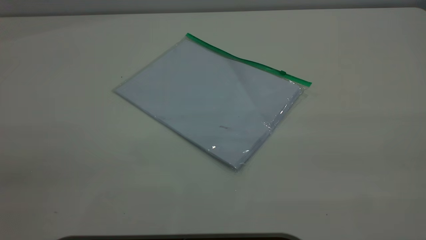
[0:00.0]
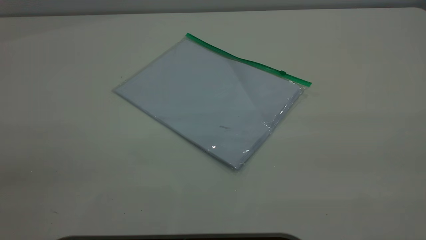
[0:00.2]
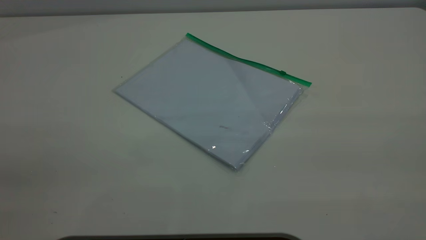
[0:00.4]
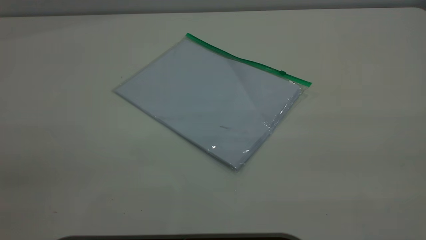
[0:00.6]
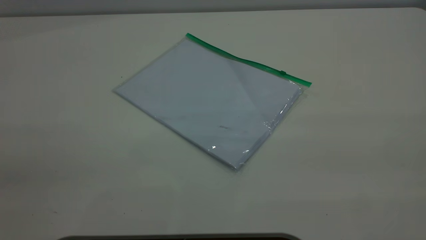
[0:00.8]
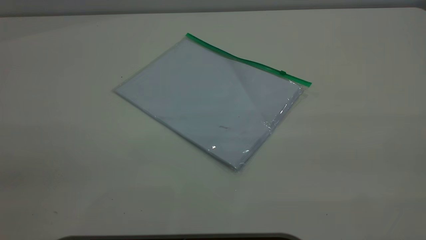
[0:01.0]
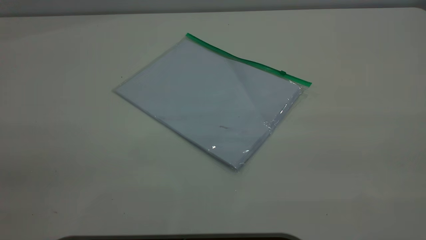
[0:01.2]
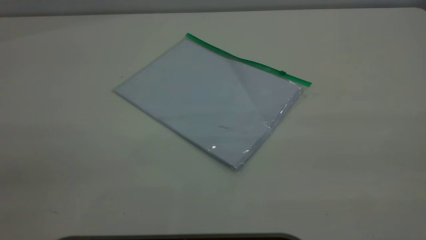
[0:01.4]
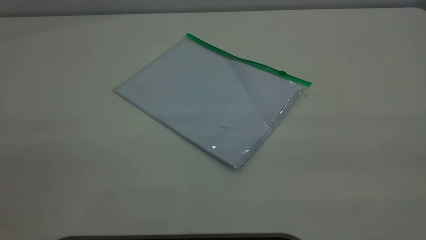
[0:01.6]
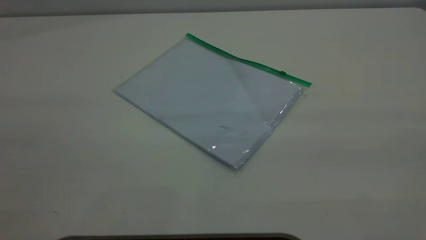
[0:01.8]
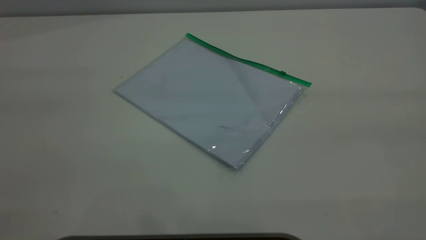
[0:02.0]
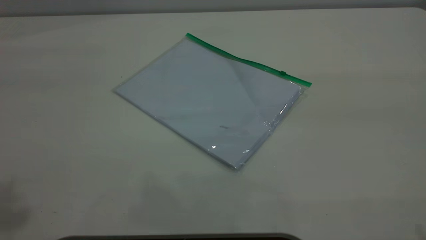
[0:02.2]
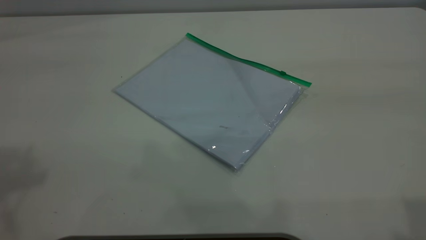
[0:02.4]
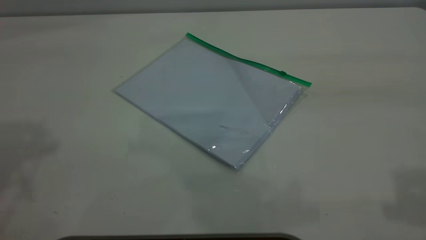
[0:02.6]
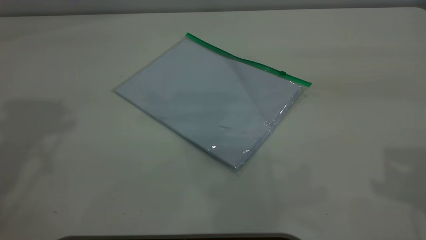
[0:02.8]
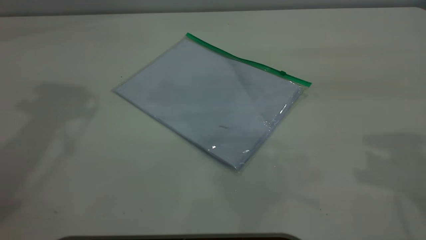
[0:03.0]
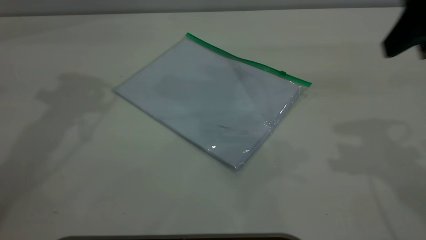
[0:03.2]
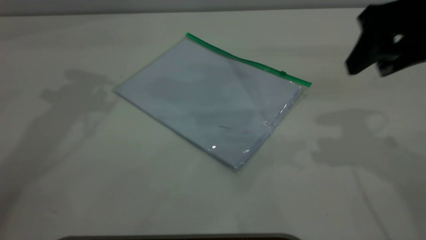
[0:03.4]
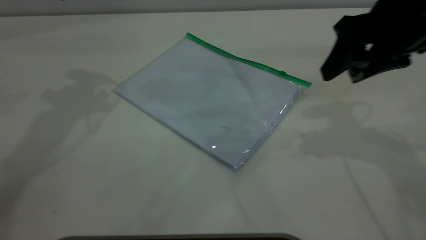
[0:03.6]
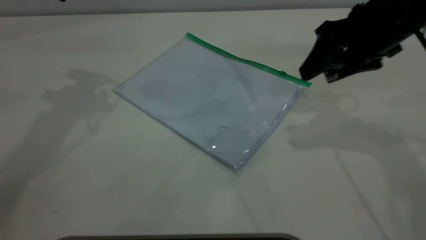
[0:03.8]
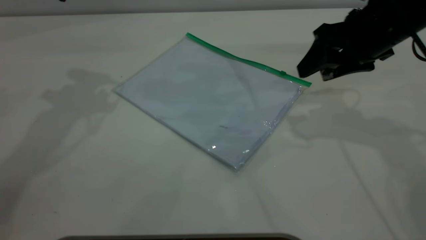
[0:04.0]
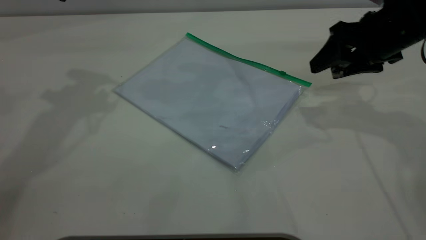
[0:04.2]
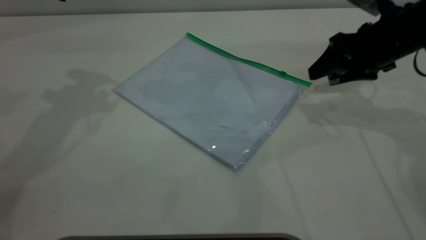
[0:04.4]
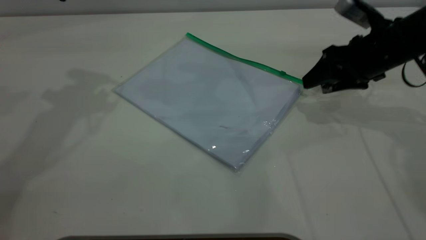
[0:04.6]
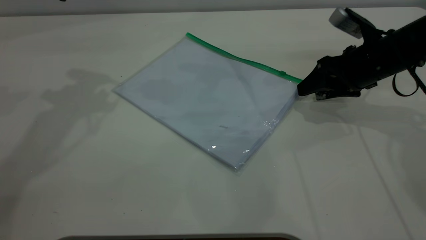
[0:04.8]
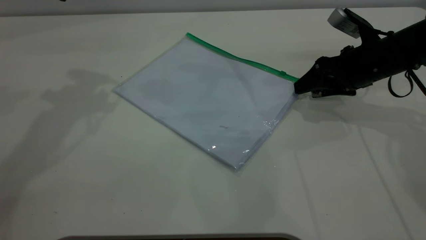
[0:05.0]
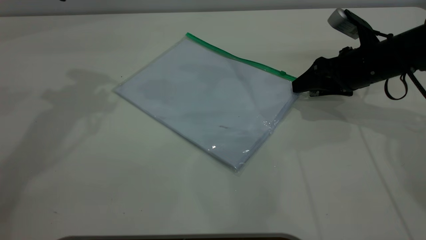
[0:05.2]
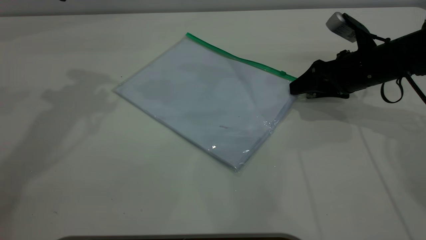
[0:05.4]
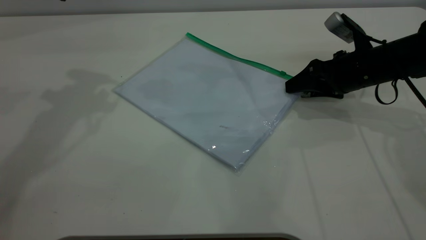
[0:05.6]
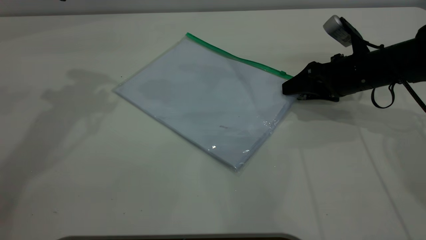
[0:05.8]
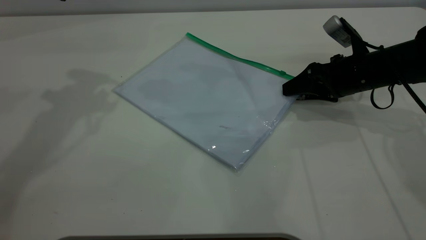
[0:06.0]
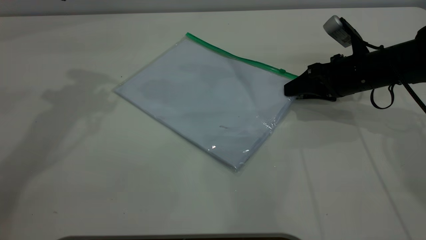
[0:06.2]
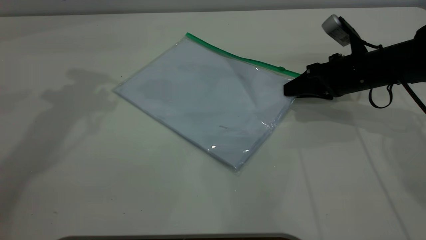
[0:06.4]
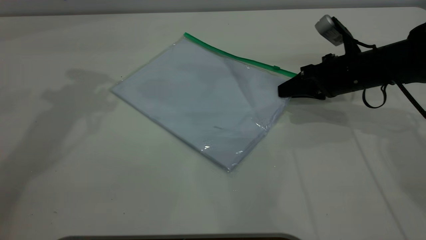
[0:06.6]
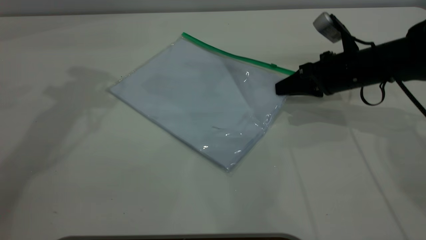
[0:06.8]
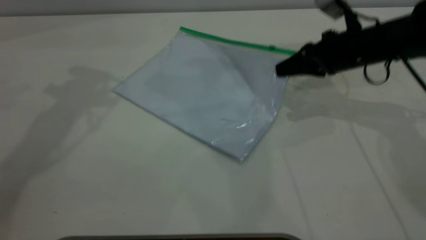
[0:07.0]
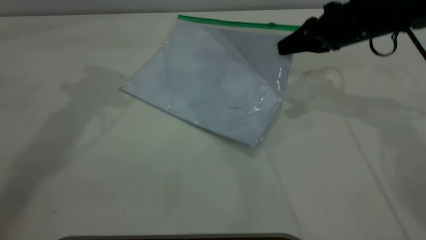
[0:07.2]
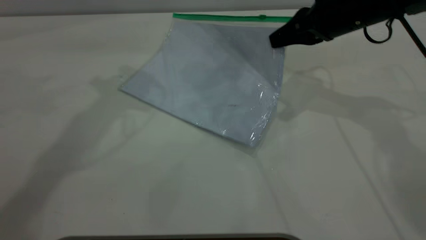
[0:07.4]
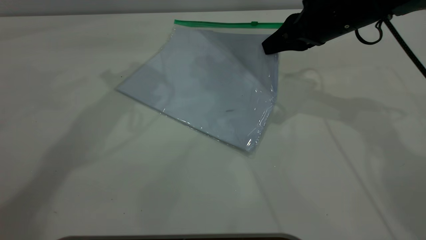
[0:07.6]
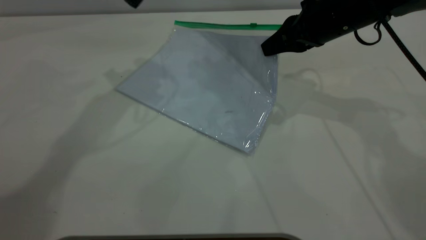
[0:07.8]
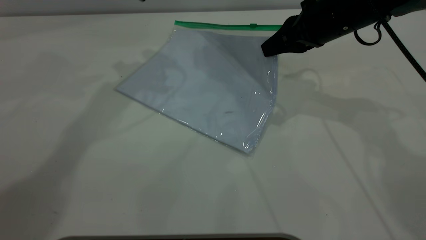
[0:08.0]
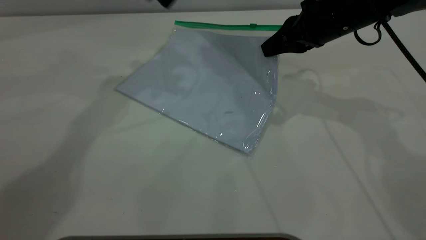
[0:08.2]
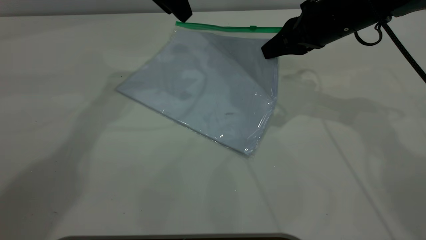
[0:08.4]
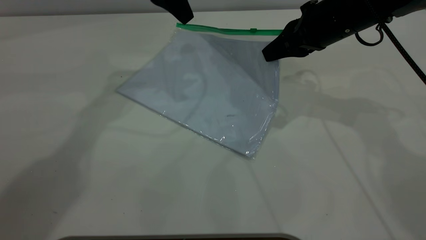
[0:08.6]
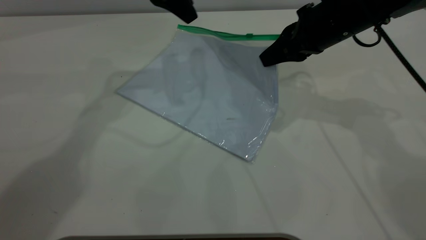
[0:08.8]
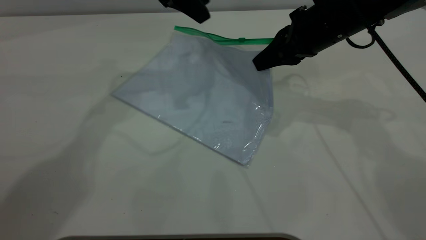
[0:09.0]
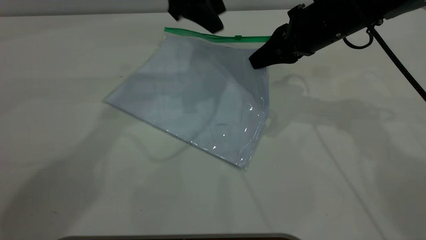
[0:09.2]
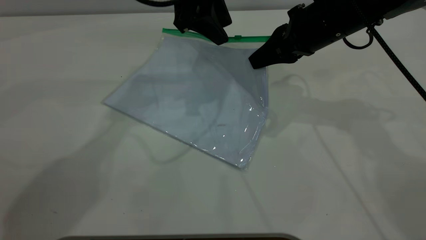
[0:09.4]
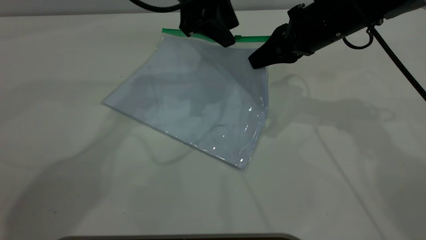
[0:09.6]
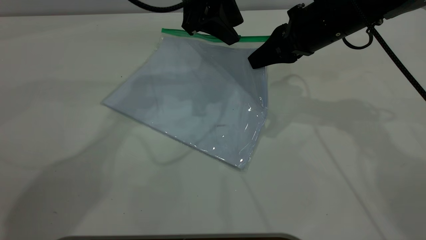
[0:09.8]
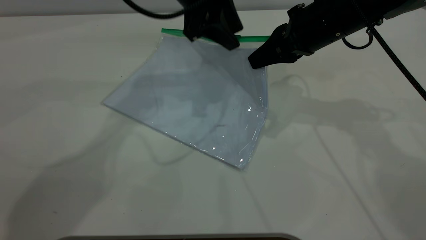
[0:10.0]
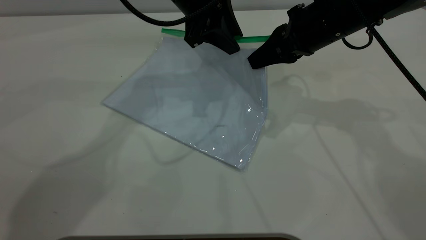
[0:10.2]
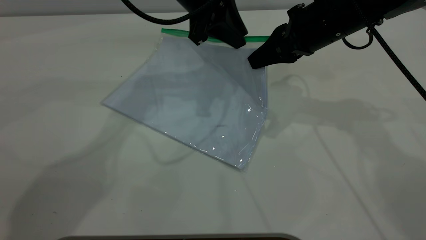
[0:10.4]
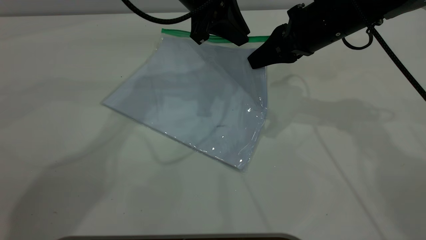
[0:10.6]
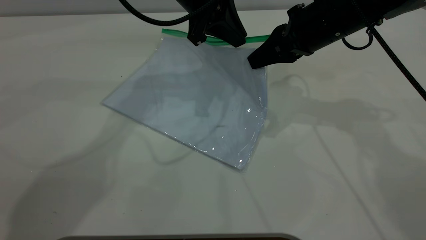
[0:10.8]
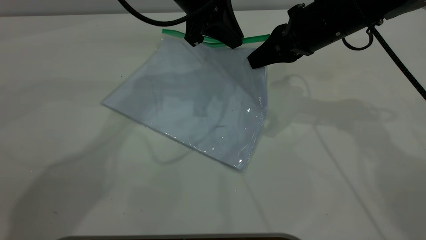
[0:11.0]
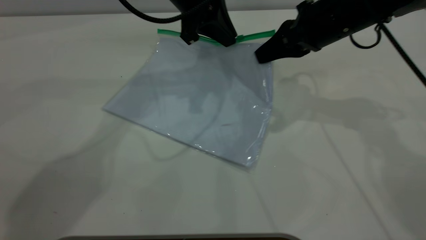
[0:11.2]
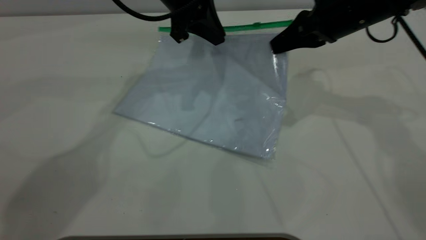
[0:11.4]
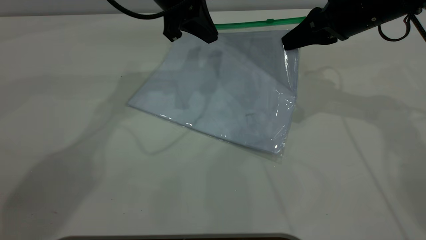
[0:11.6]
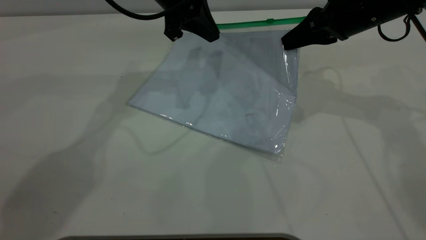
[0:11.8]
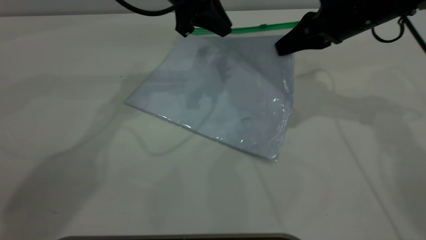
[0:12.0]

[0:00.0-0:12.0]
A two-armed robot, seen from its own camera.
Step, 0:00.0 to 0:07.6: Pick up the transparent plastic bag with the right gripper.
0:03.0 to 0:04.4: The right gripper shifts some 20 cm downward and forward.
0:04.4 to 0:06.0: The right gripper travels downward by some 10 cm.
0:06.0 to 0:07.6: The left gripper heads to the right, covering approximately 10 cm. The right gripper heads upward and to the left, covering roughly 10 cm, and closes.
0:07.6 to 0:09.0: The left gripper heads to the right, covering approximately 10 cm.
0:09.0 to 0:10.4: The left gripper shifts by roughly 5 cm, and closes its fingers.
0:10.4 to 0:12.0: The grippers stay close to where they were, moving slightly.

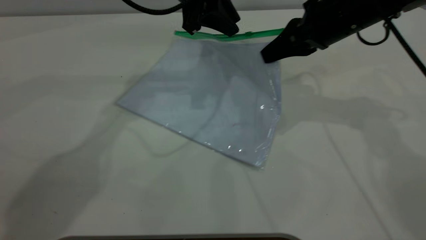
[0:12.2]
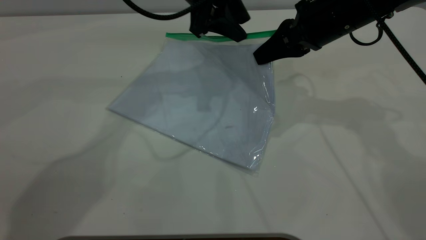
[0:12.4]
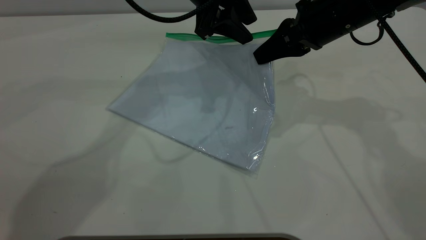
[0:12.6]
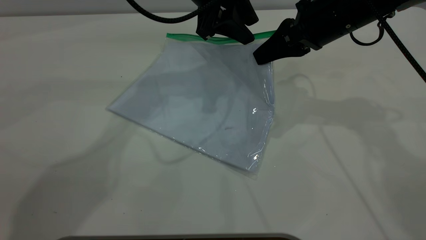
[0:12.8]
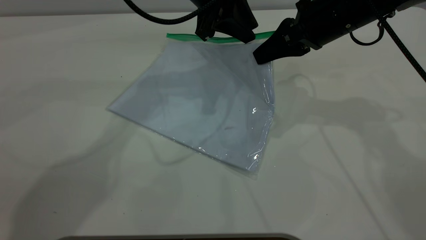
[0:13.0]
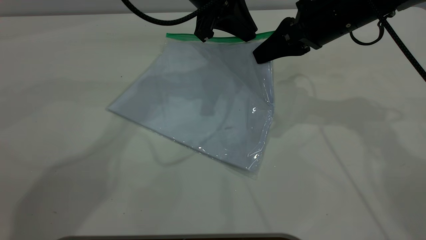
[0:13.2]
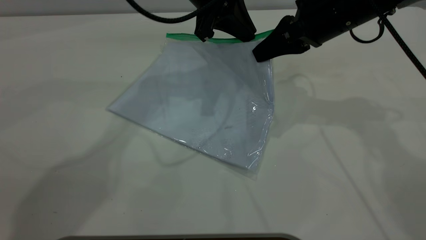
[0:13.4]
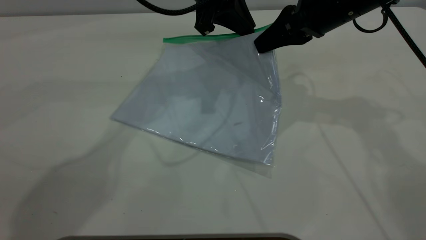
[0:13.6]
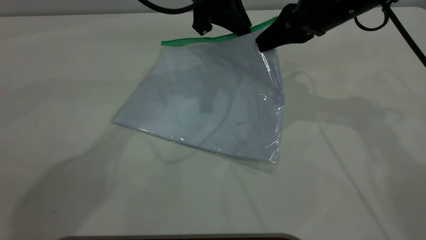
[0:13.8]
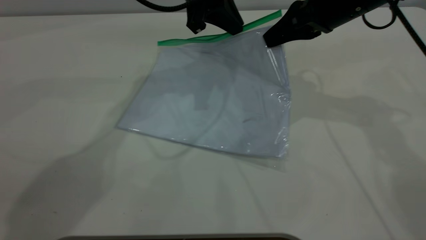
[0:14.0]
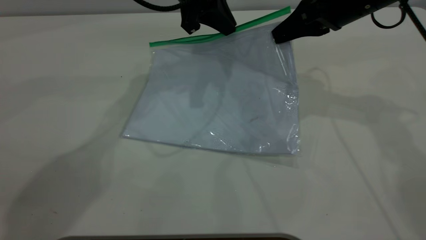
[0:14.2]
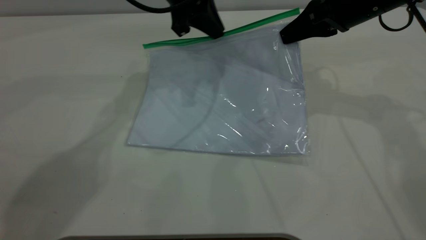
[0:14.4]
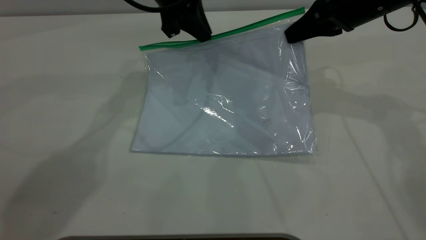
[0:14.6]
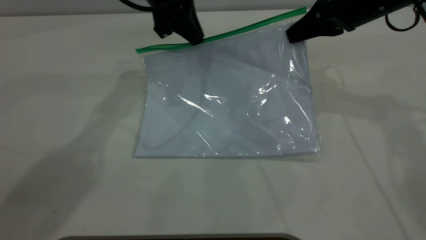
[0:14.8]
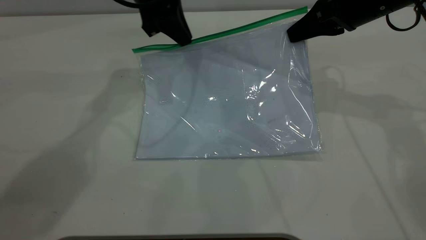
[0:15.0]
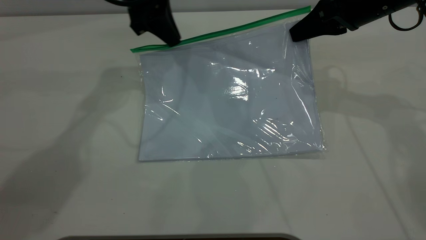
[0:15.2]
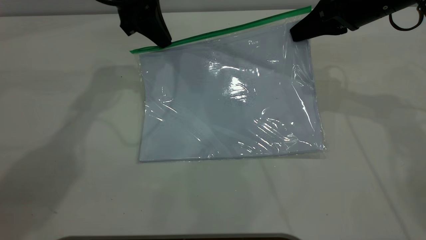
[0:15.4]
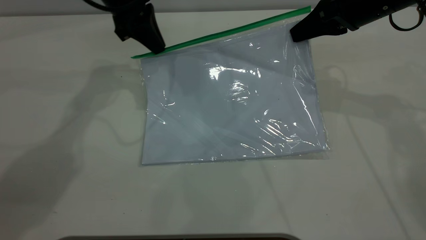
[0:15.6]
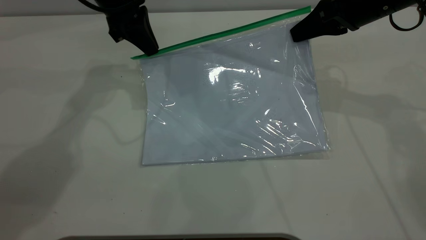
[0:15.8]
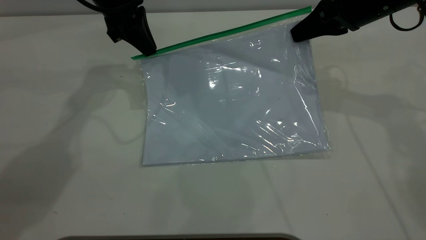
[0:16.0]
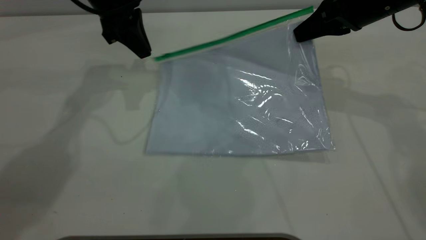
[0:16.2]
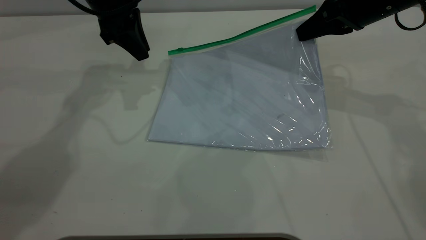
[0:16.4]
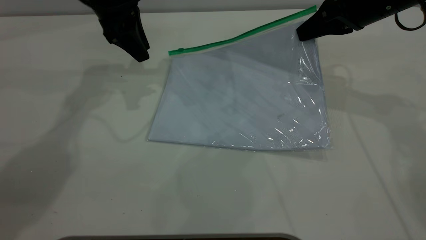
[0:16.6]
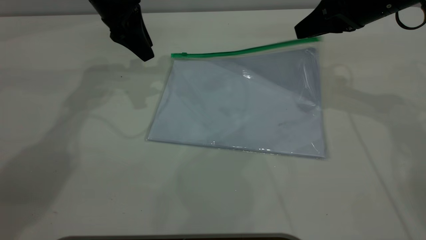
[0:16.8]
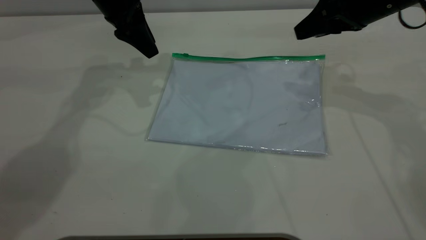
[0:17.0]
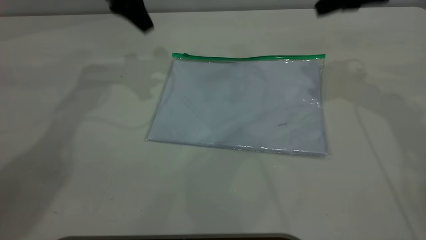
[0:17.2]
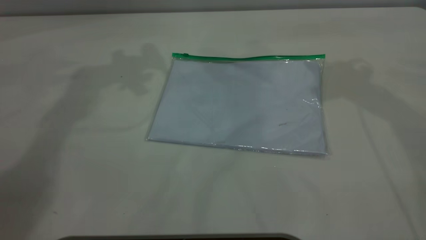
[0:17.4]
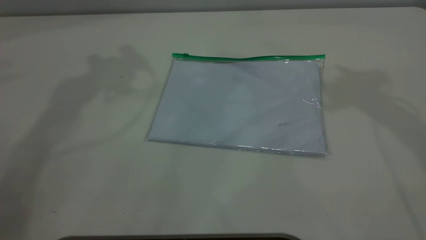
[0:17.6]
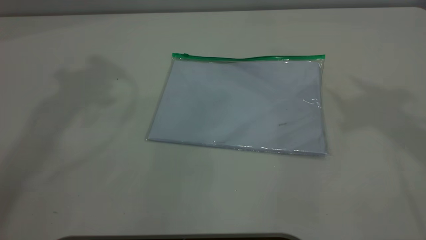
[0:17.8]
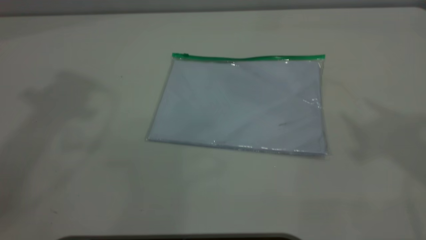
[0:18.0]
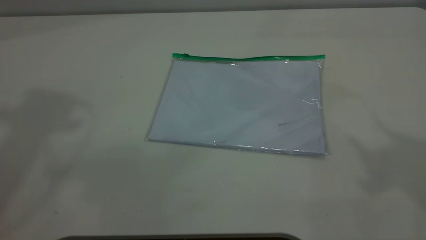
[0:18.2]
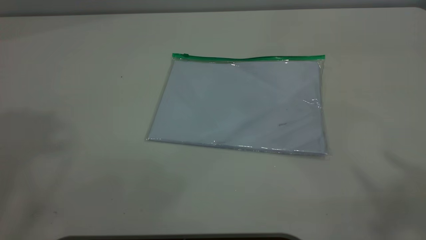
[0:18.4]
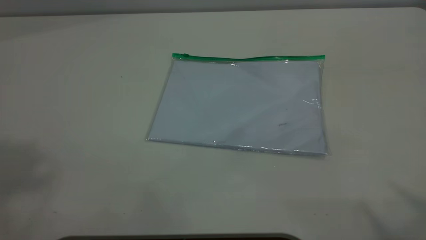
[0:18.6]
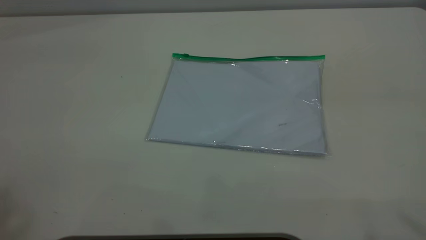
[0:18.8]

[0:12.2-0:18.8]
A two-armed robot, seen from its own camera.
Step, 0:12.2 to 0:16.4: Pulling up the zipper on the transparent plastic bag with the left gripper to close it.
Step, 0:16.6 to 0:18.0: Place the transparent plastic bag.
0:12.2 to 0:13.8: The left gripper closes up.
0:13.8 to 0:15.4: The right gripper shifts approximately 5 cm to the right; the left gripper shifts about 10 cm to the left.
0:15.4 to 0:17.2: The grippers both shift upward by some 5 cm. The right gripper opens its fingers. The left gripper opens its fingers.
0:17.2 to 0:18.8: Both grippers travel together backward and upward, about 40 cm.
